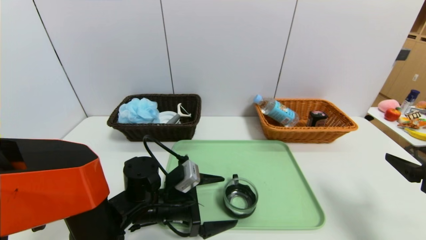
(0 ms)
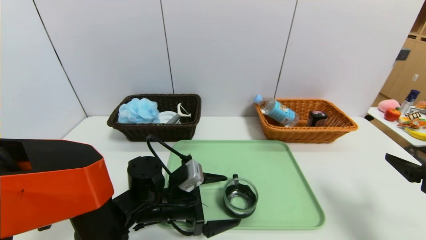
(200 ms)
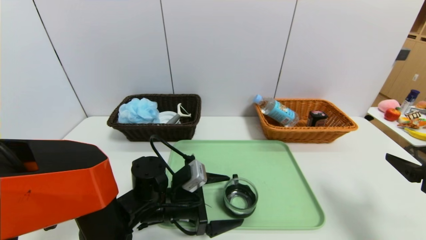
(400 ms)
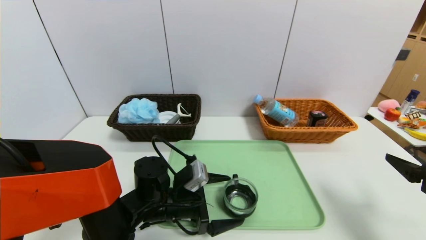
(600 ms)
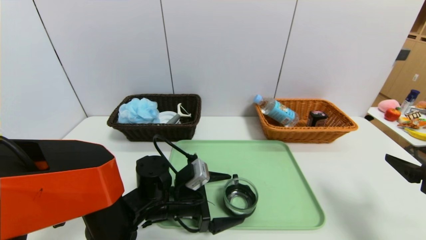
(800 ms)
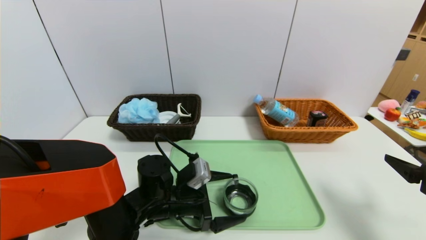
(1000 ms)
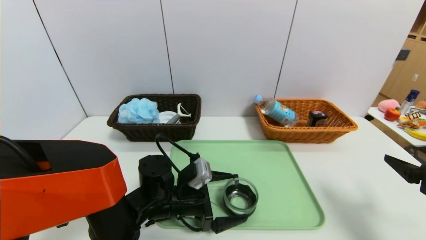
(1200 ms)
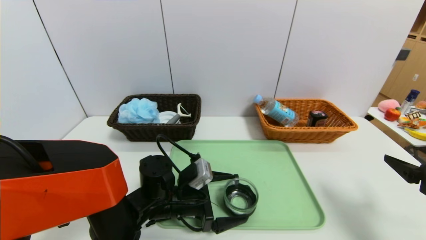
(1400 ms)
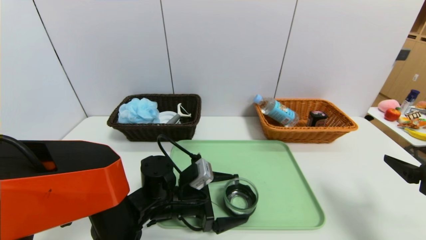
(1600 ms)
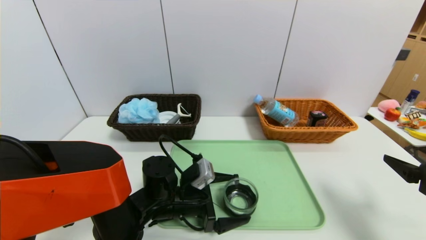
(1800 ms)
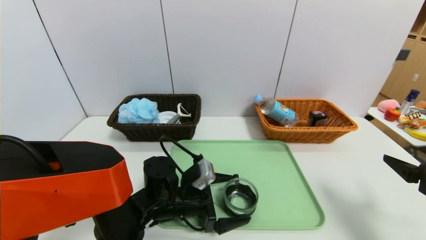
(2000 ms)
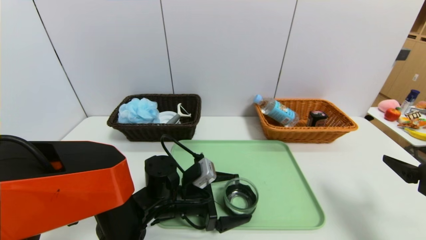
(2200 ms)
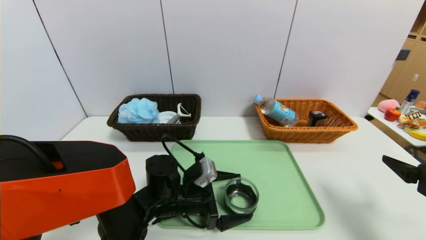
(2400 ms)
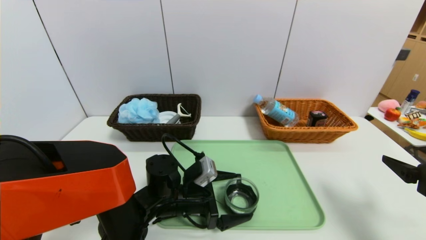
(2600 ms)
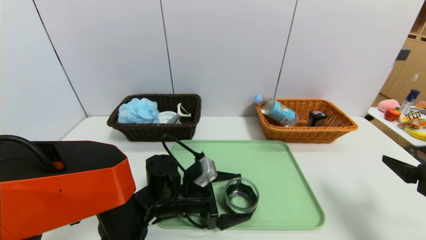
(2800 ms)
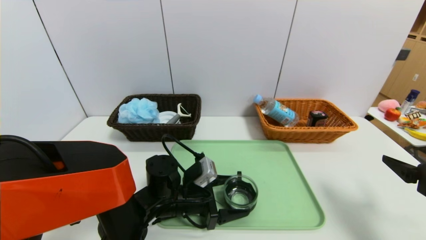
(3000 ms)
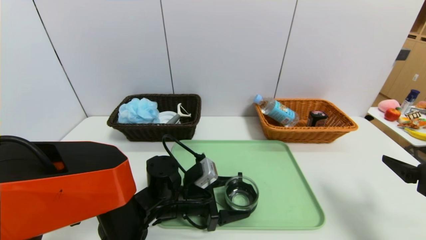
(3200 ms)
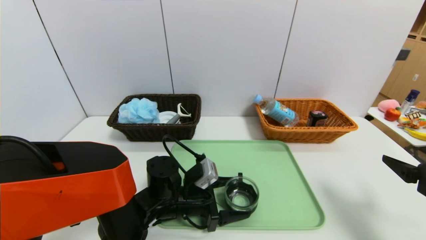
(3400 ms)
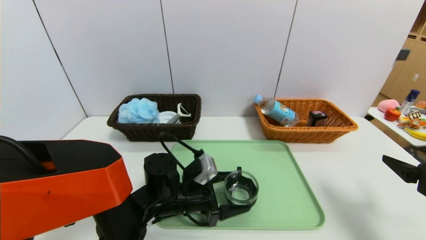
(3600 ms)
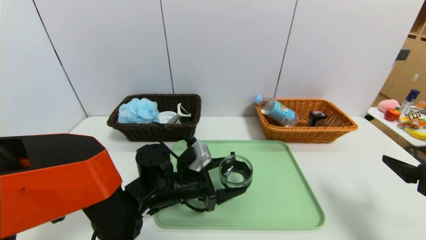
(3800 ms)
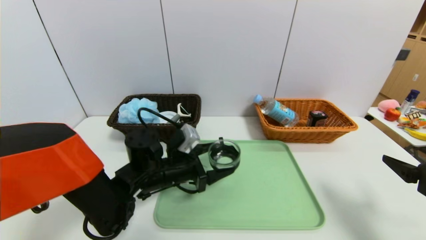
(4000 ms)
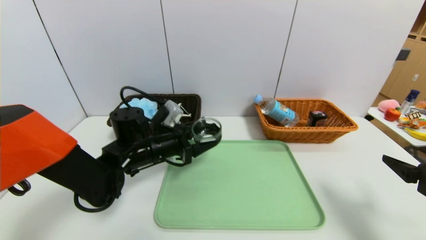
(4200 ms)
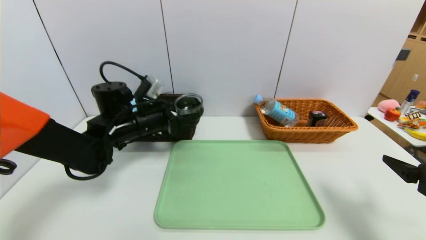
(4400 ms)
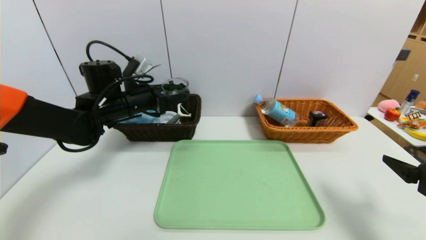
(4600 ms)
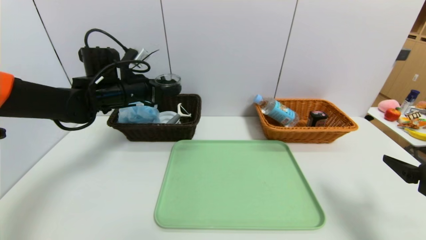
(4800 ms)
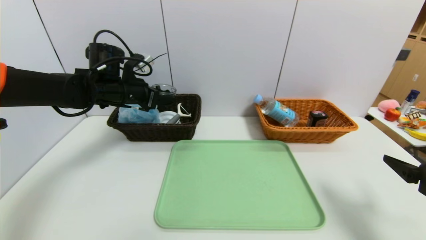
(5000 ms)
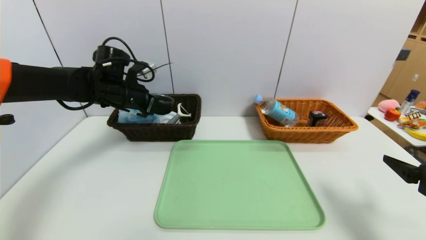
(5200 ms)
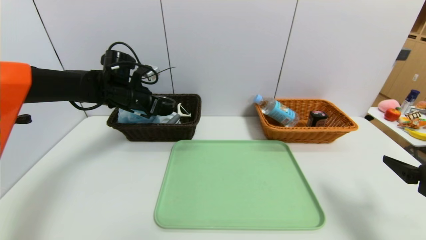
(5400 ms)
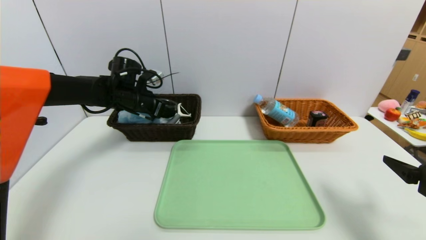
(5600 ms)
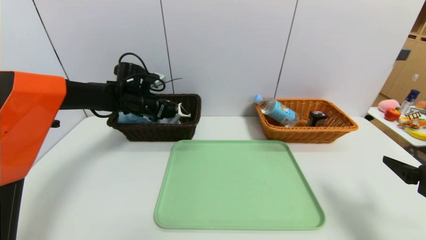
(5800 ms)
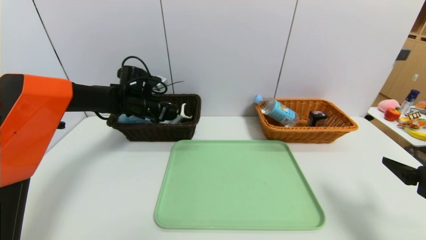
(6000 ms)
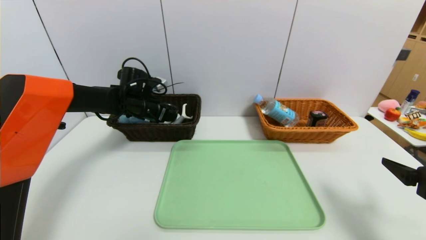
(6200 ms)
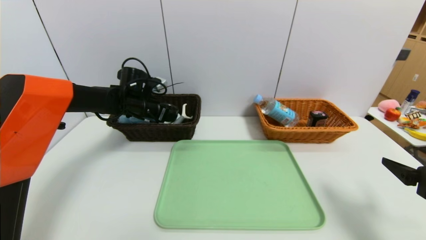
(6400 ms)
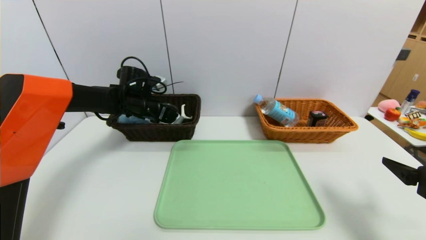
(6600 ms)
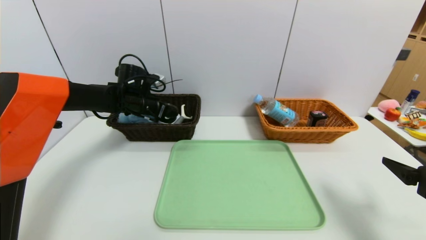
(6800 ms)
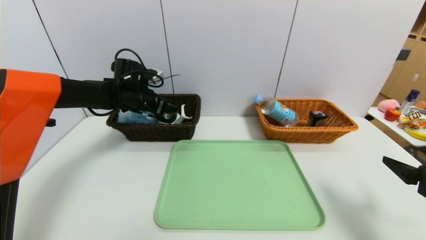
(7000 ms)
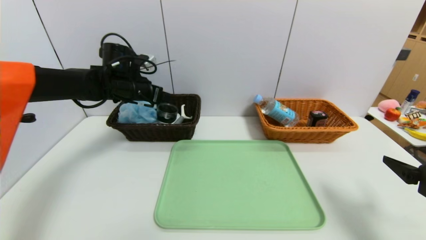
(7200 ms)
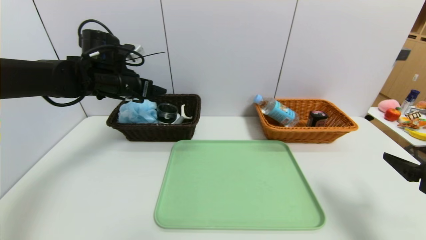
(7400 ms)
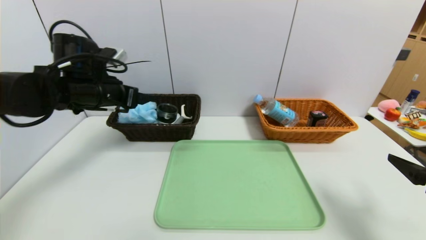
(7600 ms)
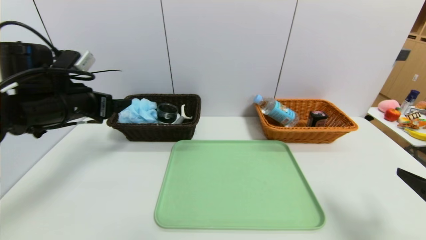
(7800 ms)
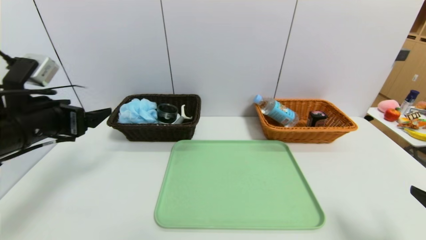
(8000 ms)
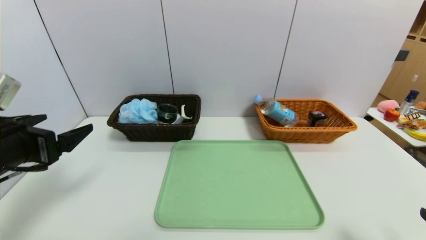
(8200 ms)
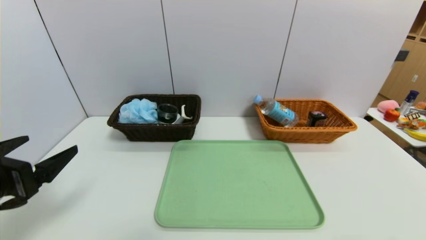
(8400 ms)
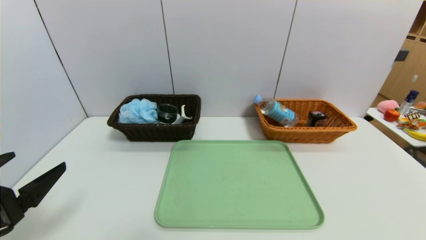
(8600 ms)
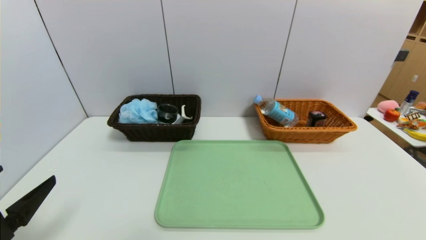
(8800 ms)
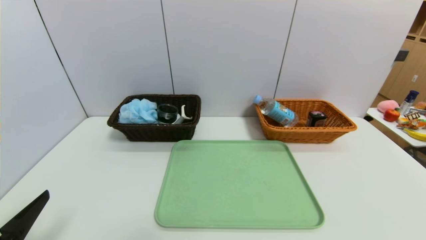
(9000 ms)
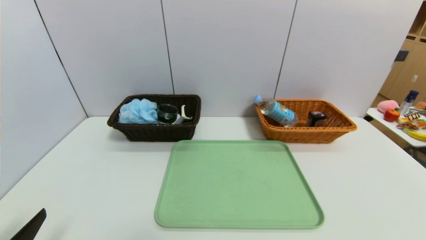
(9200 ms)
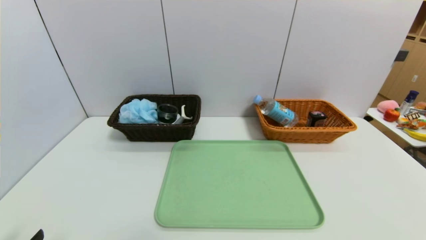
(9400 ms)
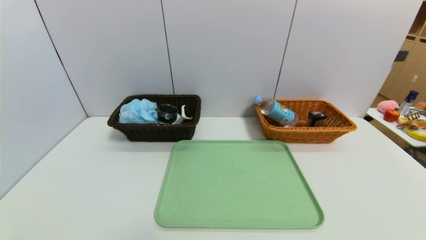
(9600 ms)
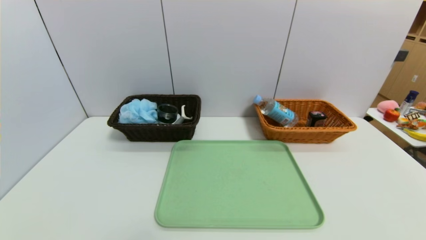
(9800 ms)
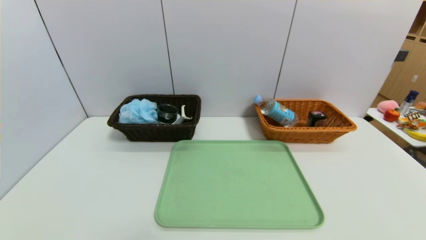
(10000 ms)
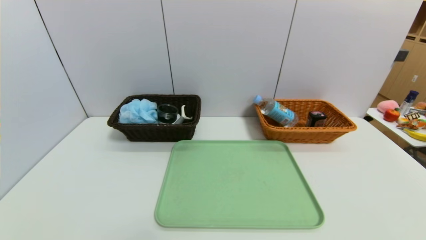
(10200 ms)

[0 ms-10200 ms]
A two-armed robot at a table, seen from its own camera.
Task of the whole recording: place the food in the right basket with the right gripper, and place the non food items in the left basket with the left gripper.
Step, 0 ms to 6600 ms: Grasp the black glass cup and put it in the left basket.
0 ms to 1400 ms: The grippers move only a little.
1400 ms to 3000 ms: Both grippers stay about where they are.
3000 ms to 4400 ms: The left gripper heads upward, to the left and forward, covering approximately 20 cm.
4400 ms to 5800 ms: The left gripper shifts roughly 10 cm forward.
5800 ms to 7200 ms: The left gripper ends up some 5 cm from where it was.
7200 ms to 8800 ms: The left gripper travels backward by about 35 cm, while the right gripper moves backward, about 15 cm.
8800 ms to 10200 ms: The left gripper heads backward and downward, covering approximately 15 cm.

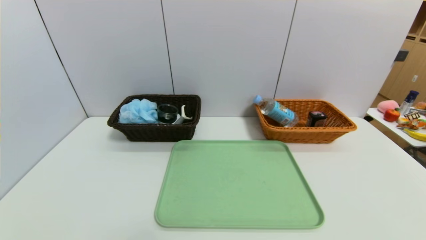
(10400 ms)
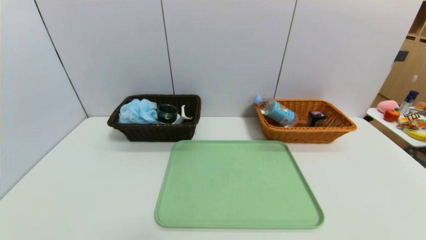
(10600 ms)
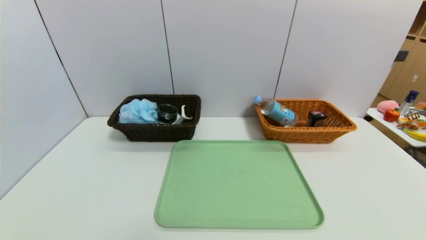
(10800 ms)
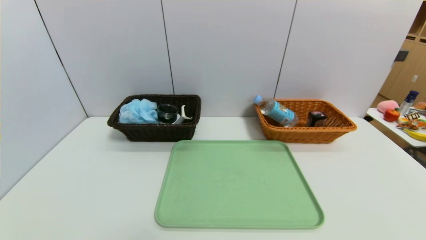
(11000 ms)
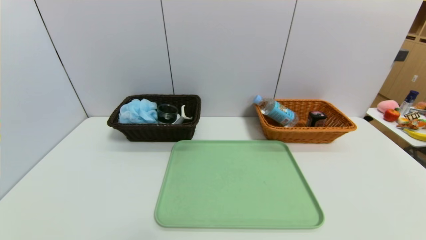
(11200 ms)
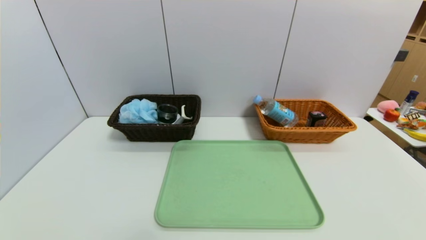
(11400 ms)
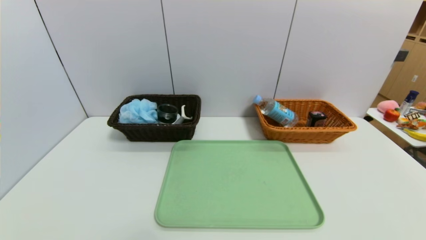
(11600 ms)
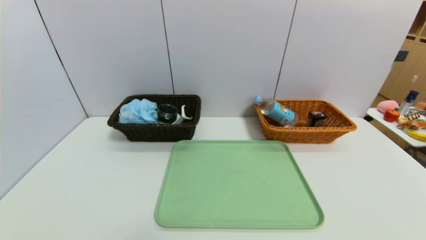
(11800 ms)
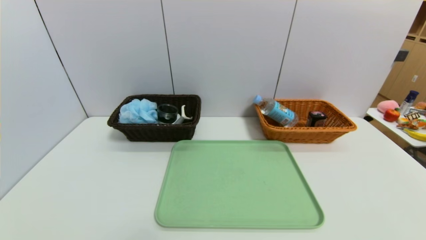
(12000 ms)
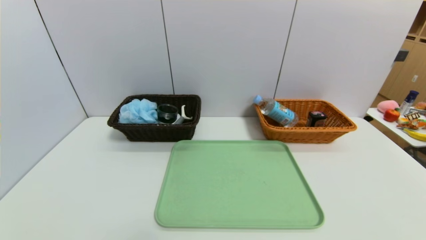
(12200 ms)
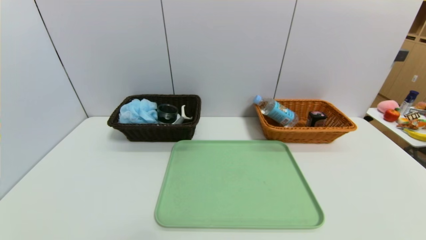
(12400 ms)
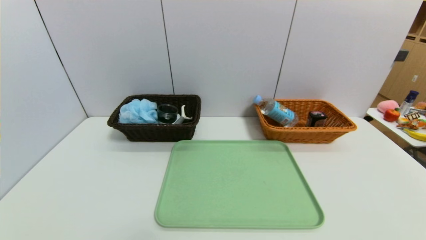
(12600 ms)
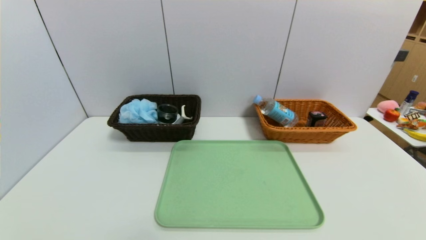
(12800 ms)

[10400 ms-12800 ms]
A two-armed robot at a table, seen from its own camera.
Task of the whole recording: place the food in the right basket with the right gripper, and place the non food items in the left basket with the left gripper.
11600 ms to 12800 ms: Both grippers stay about where they are.

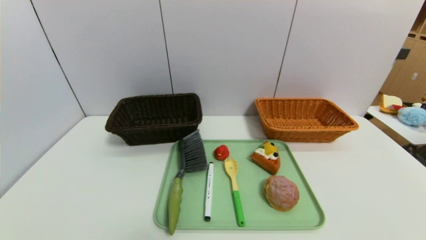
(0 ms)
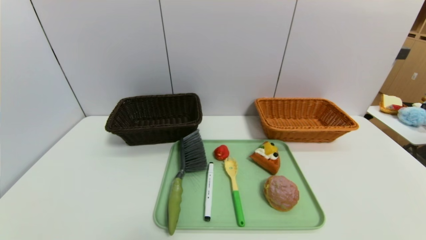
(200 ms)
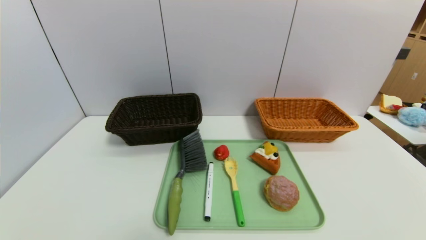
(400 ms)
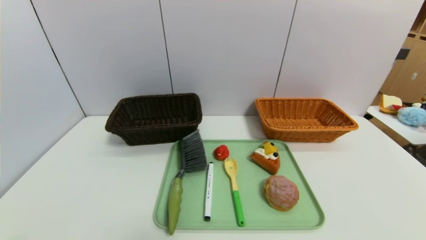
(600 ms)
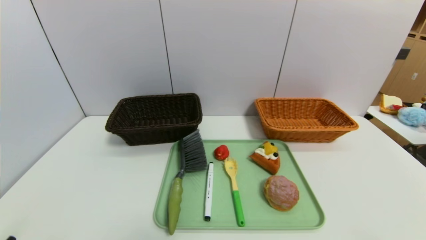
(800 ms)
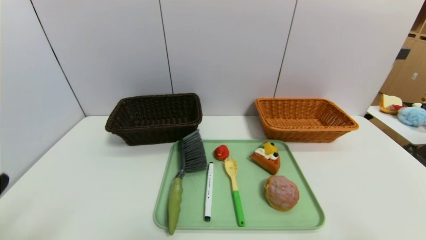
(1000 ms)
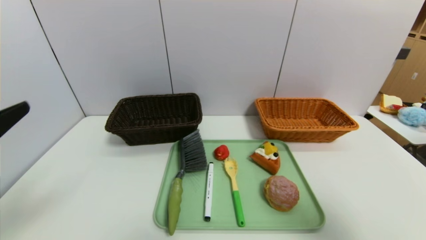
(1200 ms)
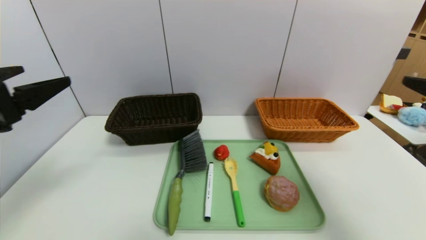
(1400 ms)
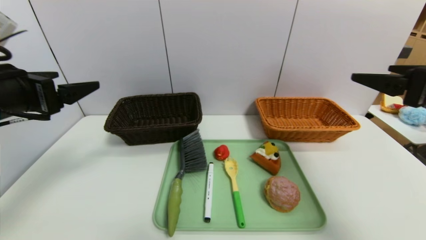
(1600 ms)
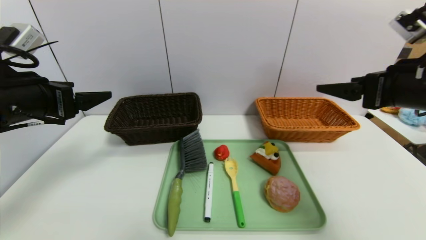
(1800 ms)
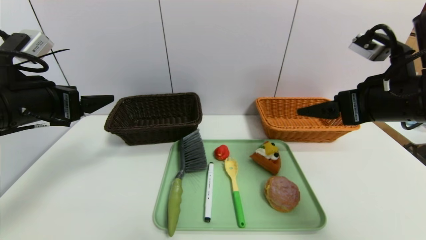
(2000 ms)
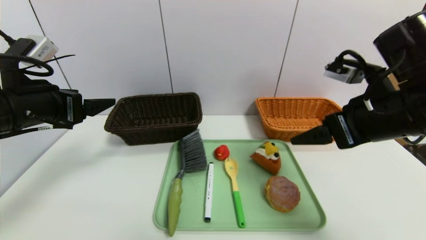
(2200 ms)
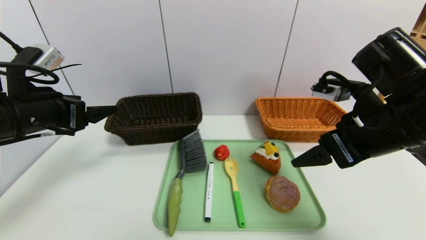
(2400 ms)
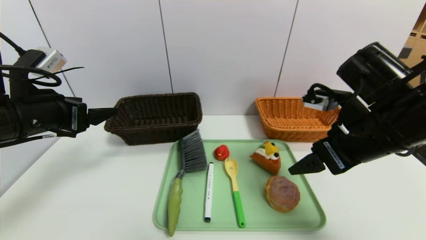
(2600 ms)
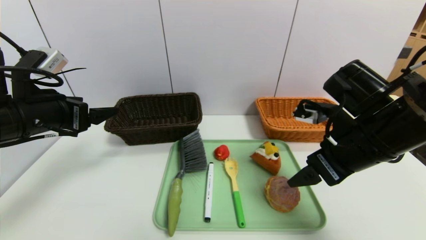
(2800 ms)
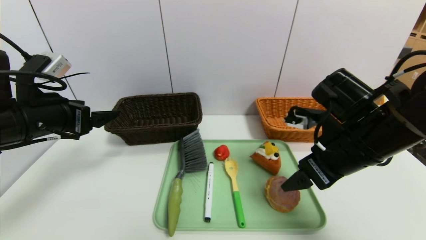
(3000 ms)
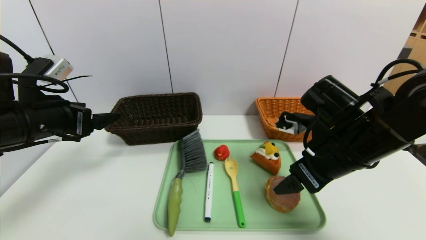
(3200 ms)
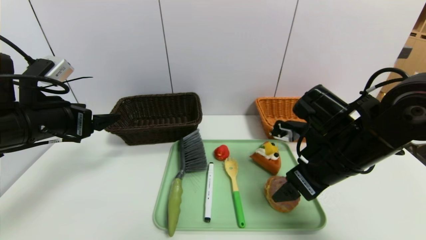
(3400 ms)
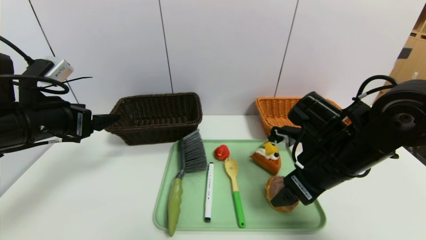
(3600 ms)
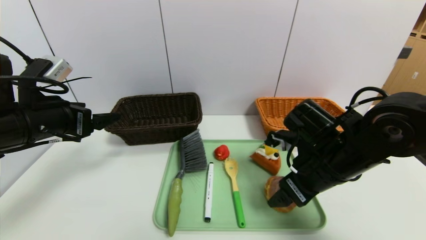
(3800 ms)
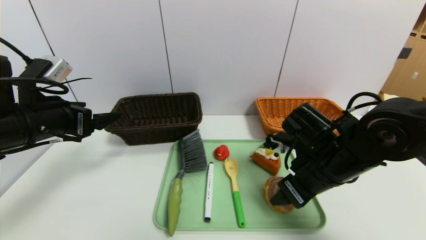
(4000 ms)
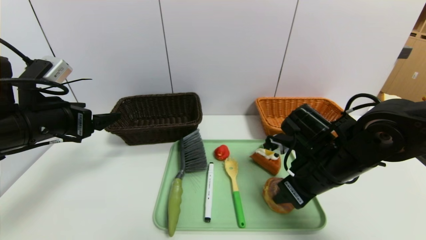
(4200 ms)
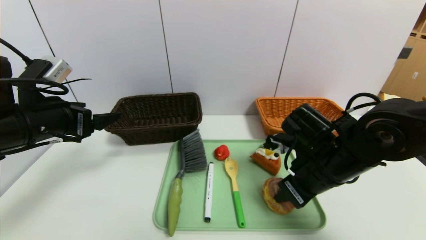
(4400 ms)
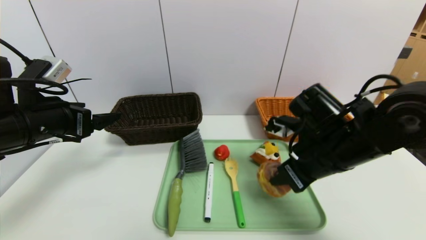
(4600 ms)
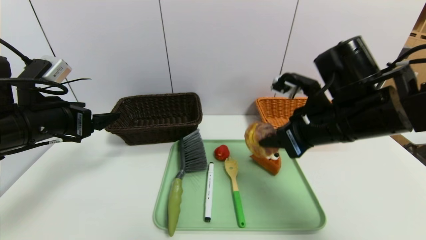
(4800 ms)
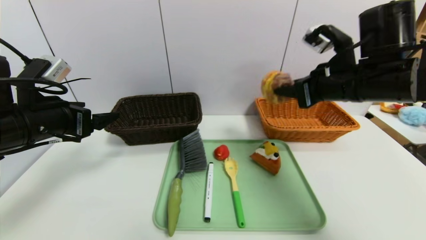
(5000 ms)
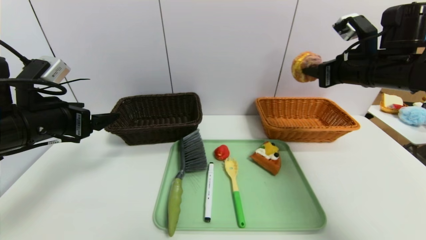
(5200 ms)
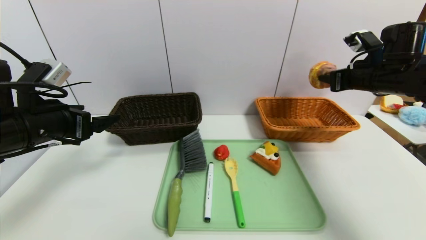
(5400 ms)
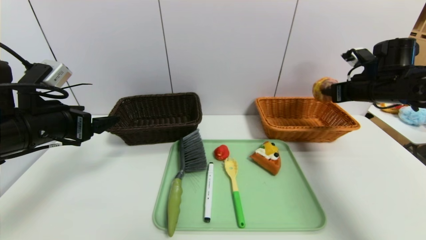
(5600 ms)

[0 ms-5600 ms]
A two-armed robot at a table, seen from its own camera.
Task of the whole recording: place the food in the right basket with the right gripper, and place the non food items in the left basket with the left gripper.
0 ms to 1400 ms: Both grippers travel together upward and forward, approximately 30 cm.
1400 ms to 2800 ms: The right gripper is displaced to the left, forward and downward by approximately 15 cm. Meanwhile the left gripper heads forward, covering some 5 cm.
2800 ms to 4200 ms: The right gripper heads downward, covering approximately 5 cm, and closes.
4200 ms to 5600 ms: The right gripper heads to the right, forward and upward, covering some 25 cm.
